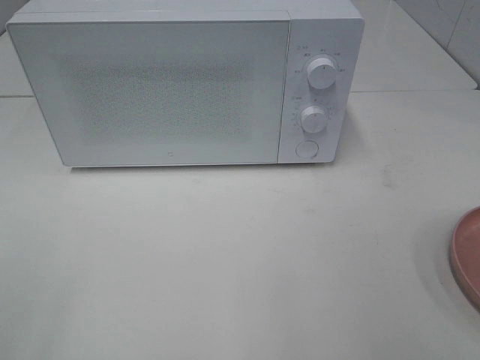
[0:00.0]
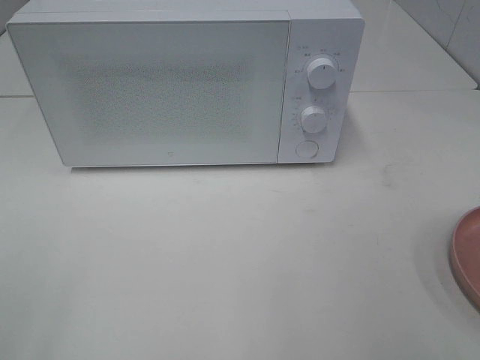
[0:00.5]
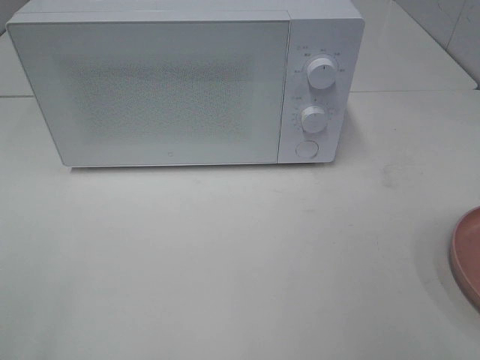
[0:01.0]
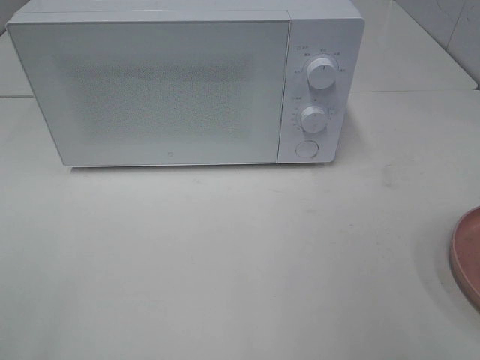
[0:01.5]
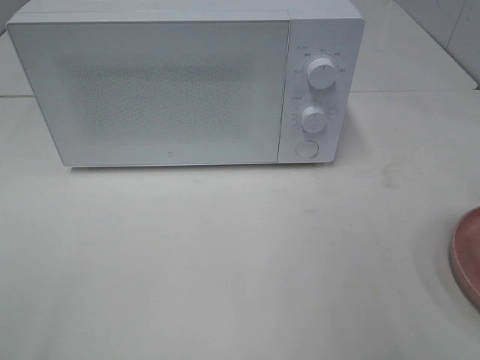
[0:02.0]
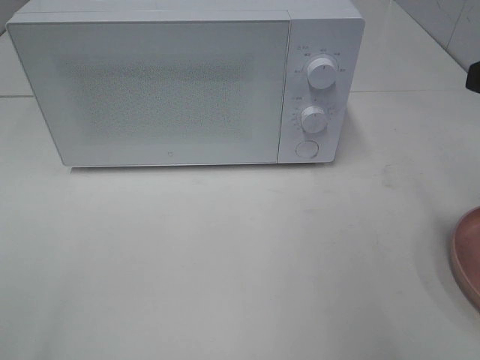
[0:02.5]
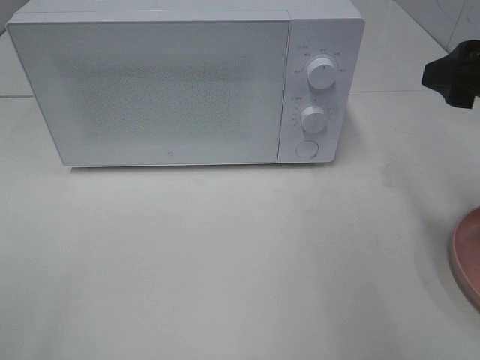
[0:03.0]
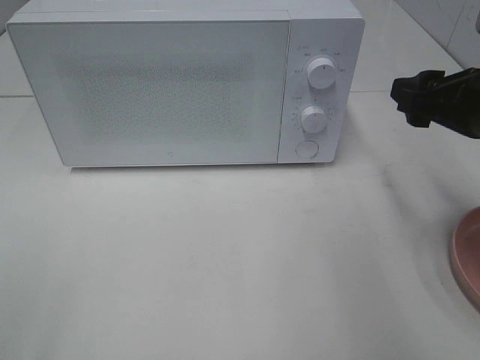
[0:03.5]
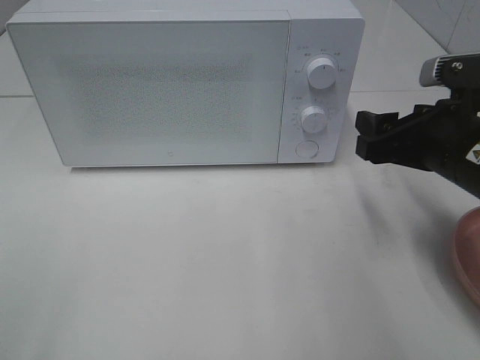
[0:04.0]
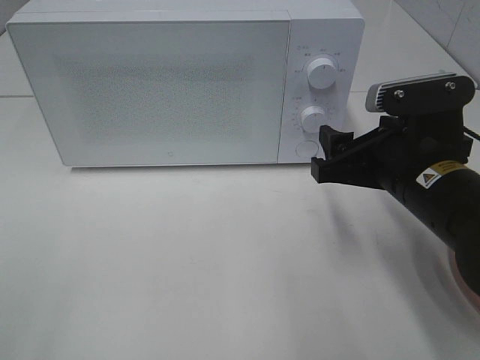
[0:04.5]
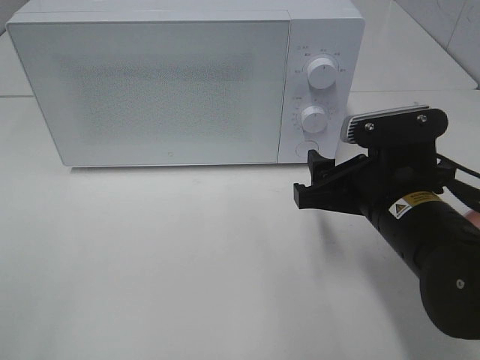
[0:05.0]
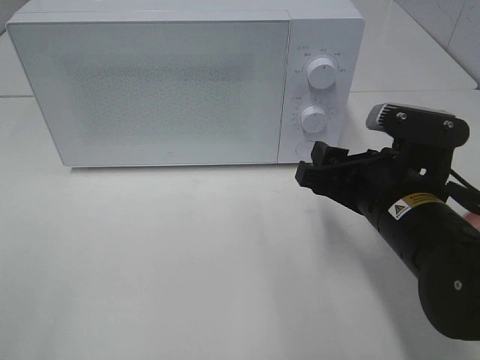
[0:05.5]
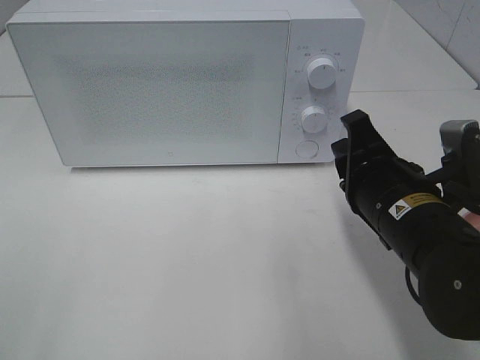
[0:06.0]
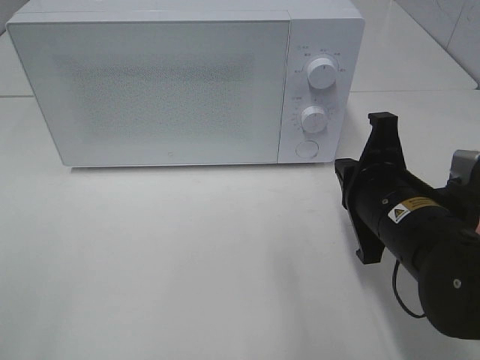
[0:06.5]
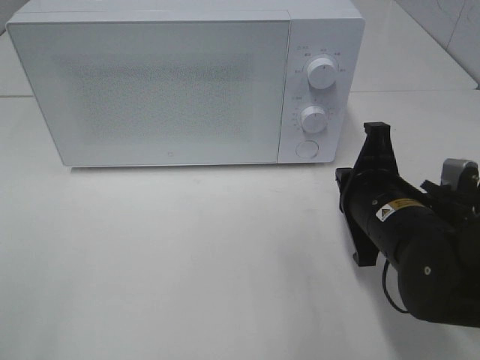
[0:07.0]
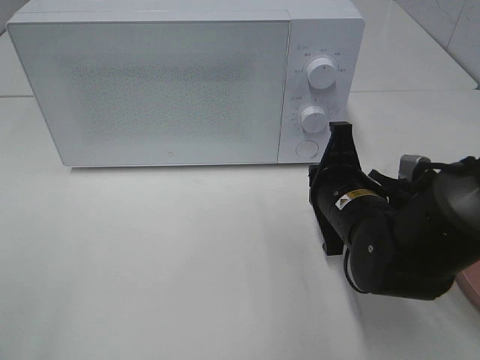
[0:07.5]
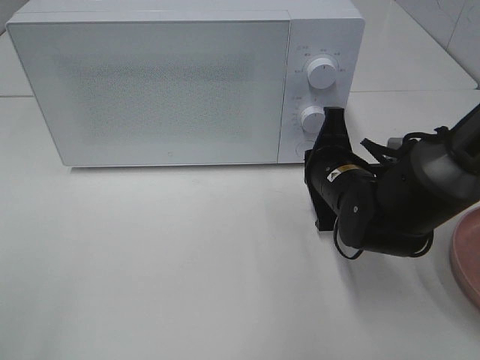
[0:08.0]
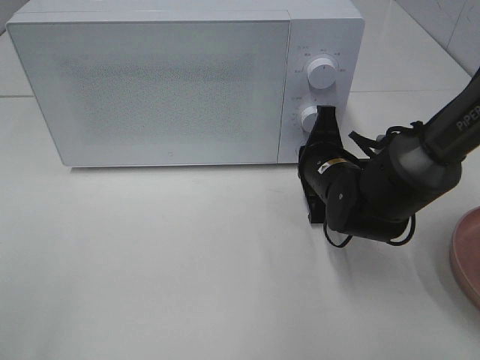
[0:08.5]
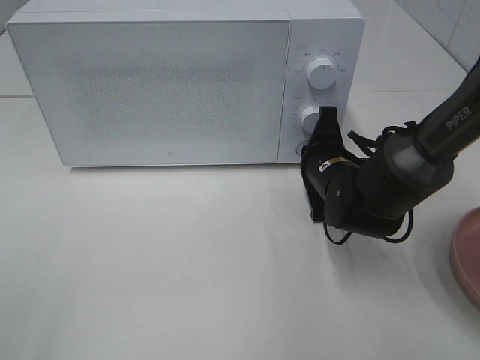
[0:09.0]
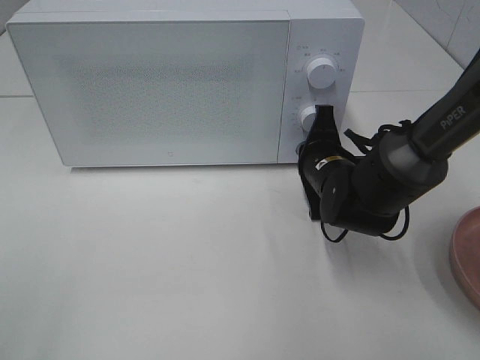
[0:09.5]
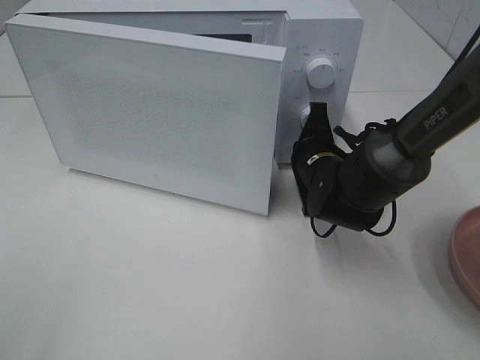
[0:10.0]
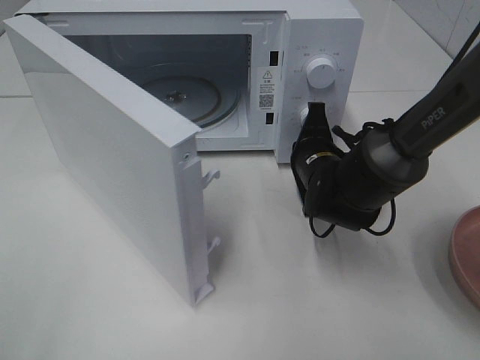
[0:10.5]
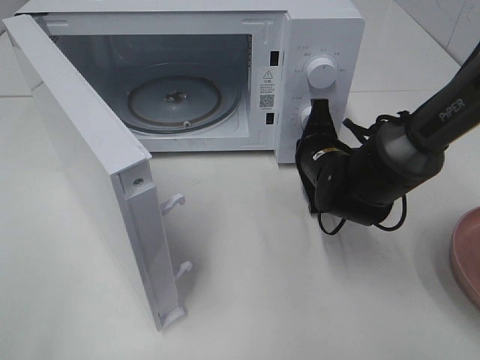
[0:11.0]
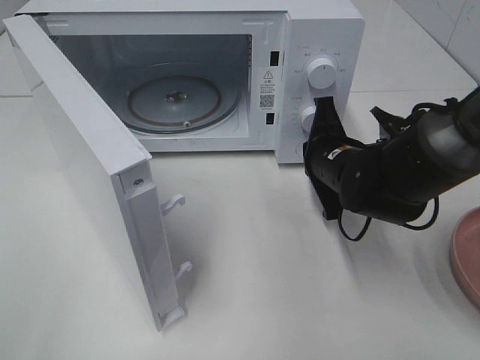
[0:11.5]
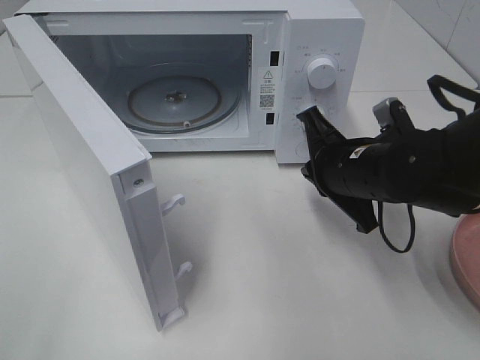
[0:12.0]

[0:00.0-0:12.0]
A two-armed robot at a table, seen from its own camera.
Task of the whole recording: Heat the burger.
Step, 0.0 to 11.5 s: Right hand: press the switch.
2.0 to 4.0 s: The right gripper shifts some 20 cm downward, forward and to the left.
4.0 to 6.0 s: The right gripper is displaced to the left by roughly 5 cm, and closes up.
6.0 to 8.0 s: The right gripper heads forward and downward, covering roughly 10 cm, and closes up.
8.0 to 10.0 s: The right gripper ends up approximately 5 cm from where it was.
10.0 to 12.0 s: The right gripper is displaced backward and upward by some 10 cm.

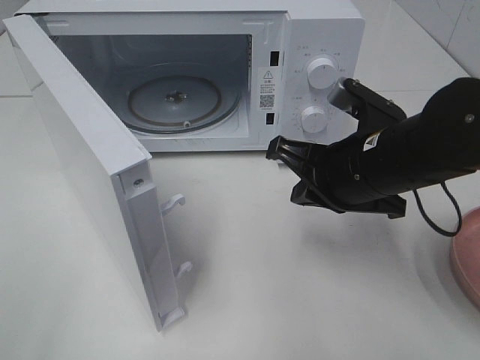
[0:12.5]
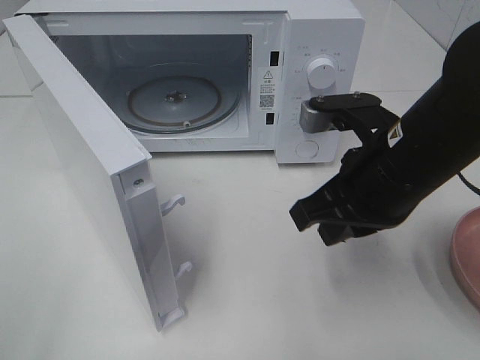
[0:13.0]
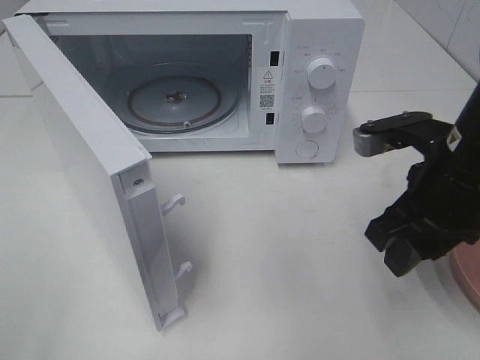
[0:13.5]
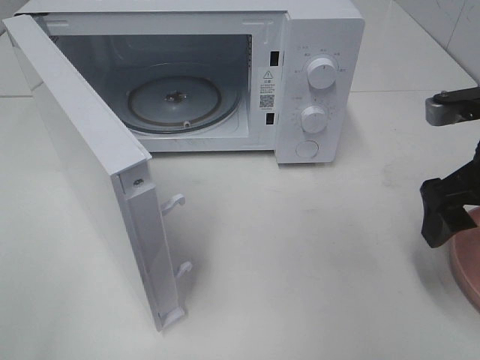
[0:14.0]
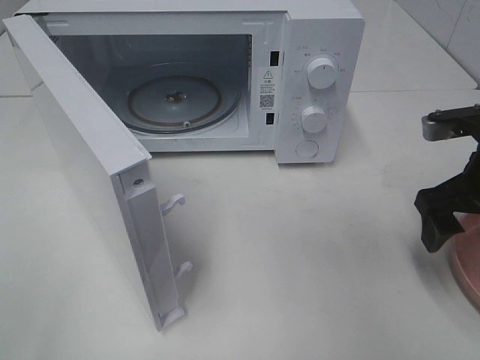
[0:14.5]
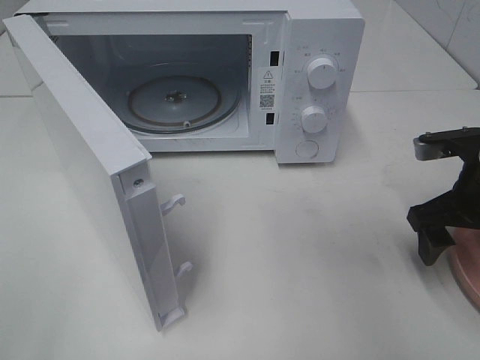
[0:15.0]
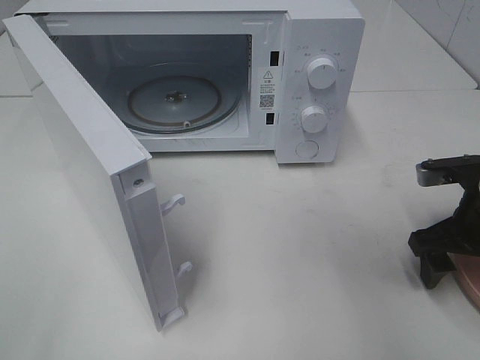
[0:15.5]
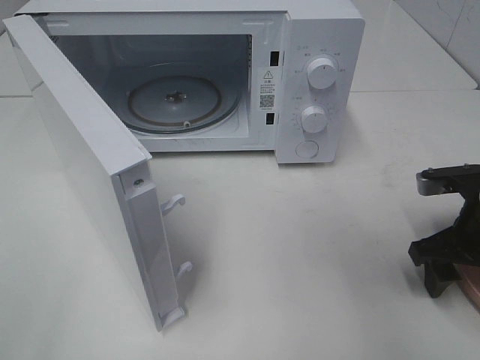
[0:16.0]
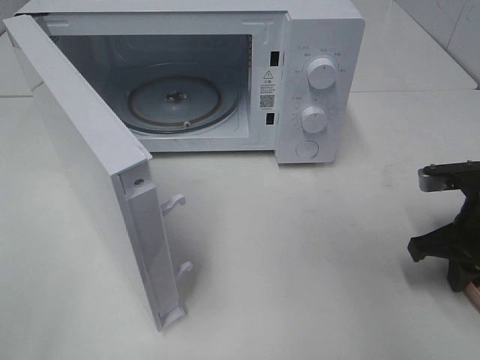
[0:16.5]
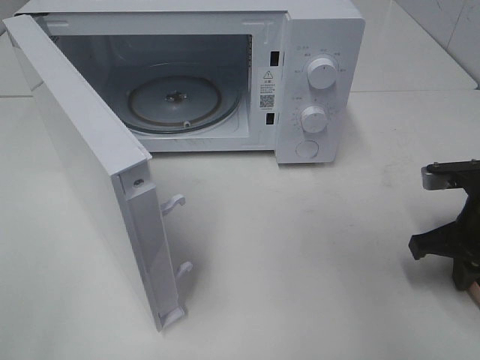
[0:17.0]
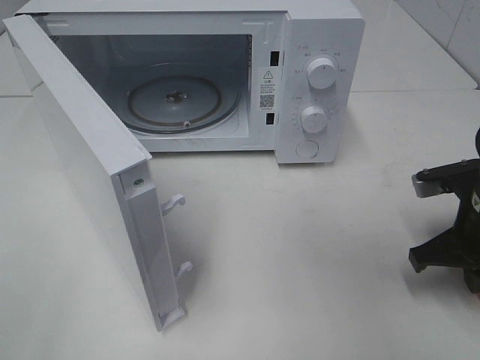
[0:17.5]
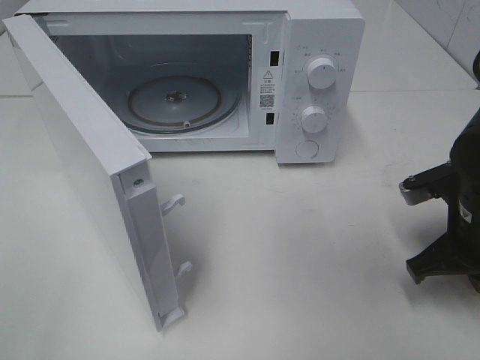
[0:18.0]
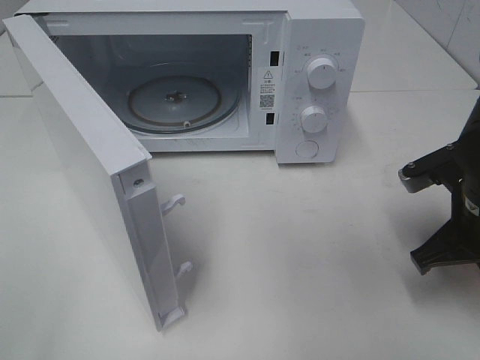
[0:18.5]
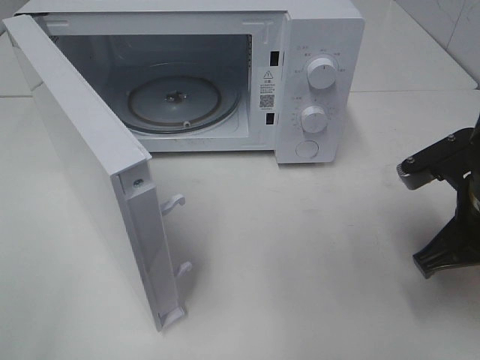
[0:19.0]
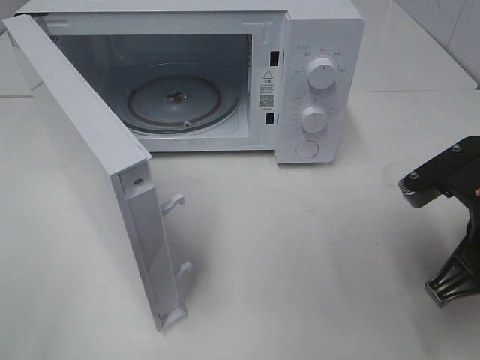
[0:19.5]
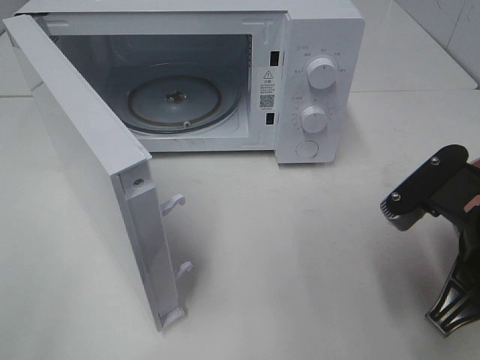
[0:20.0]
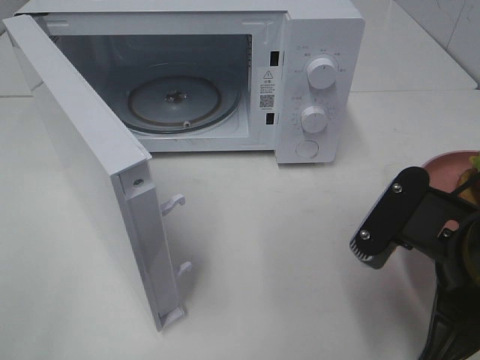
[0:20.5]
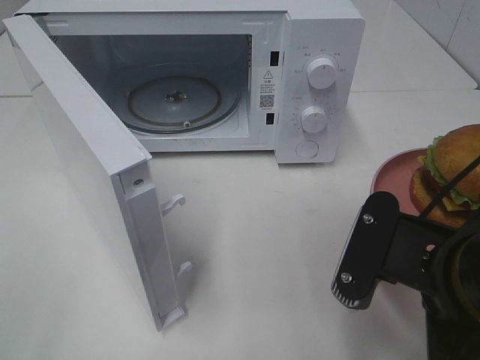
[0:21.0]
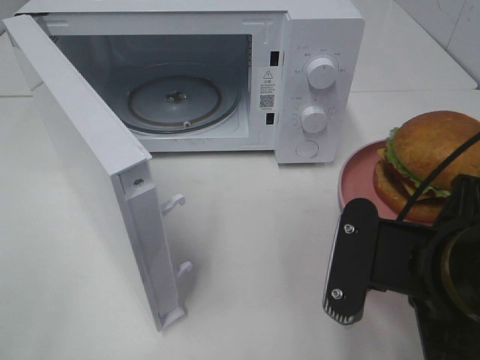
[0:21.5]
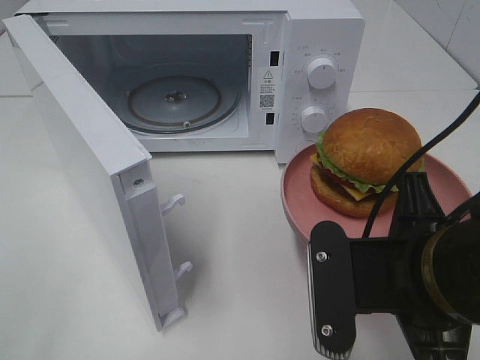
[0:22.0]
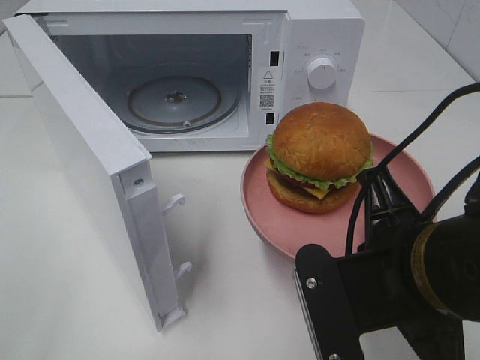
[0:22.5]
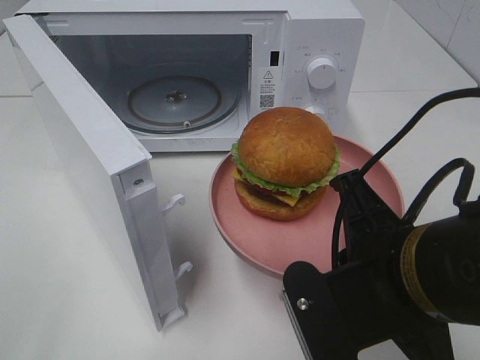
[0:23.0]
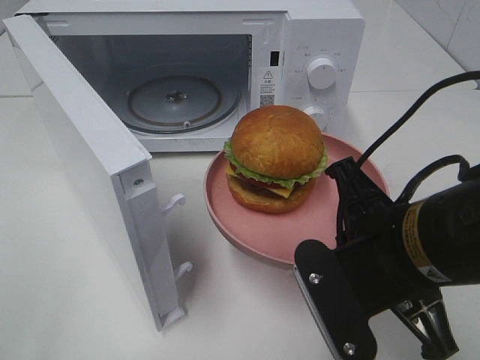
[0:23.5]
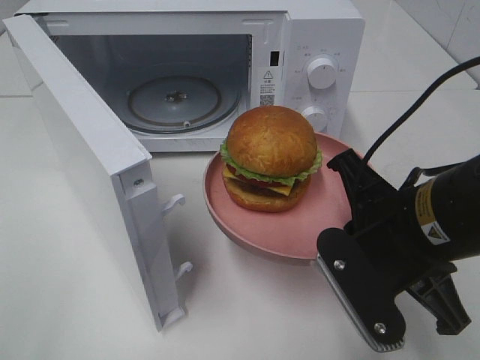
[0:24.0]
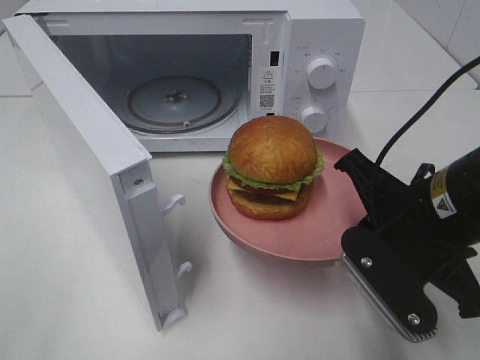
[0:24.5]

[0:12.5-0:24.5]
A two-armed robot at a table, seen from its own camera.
Task of the whole recording: Heat the burger.
Step, 12.5 to 17.5 s: Right hand: grab the plate with the hamburger.
12.5 to 14.5 s: The right gripper moves to the right, some 15 cm, and opens its fingers.
14.5 to 16.5 s: The right gripper is displaced downward by about 5 cm, and closes up.
16.5 to 18.5 s: The right gripper moves some 5 cm.
18.5 to 20.5 s: The right gripper shifts about 10 cm backward and to the left.
22.5 to 24.5 s: The right gripper travels forward by about 5 cm.

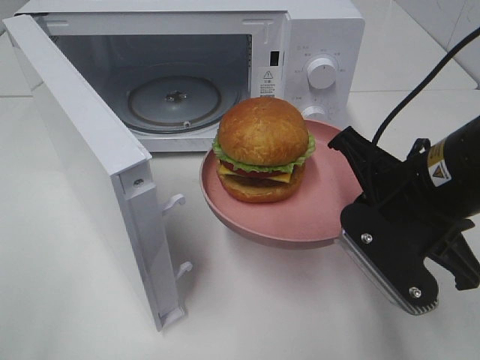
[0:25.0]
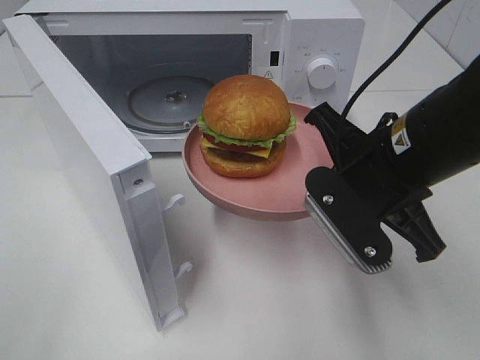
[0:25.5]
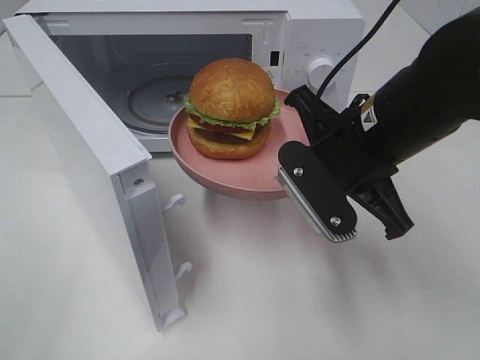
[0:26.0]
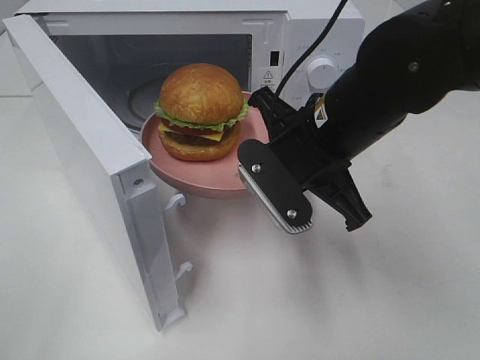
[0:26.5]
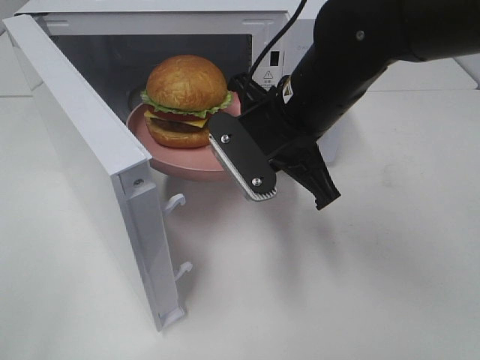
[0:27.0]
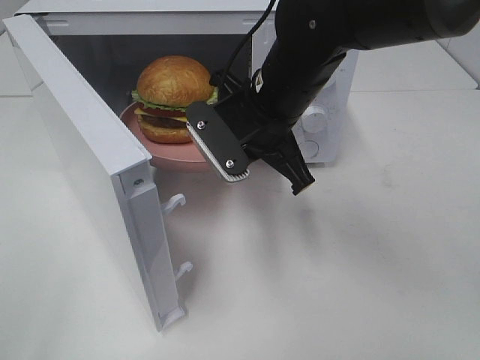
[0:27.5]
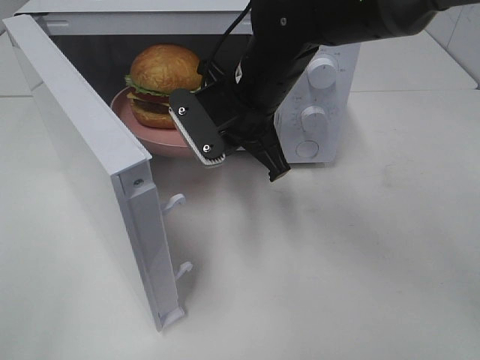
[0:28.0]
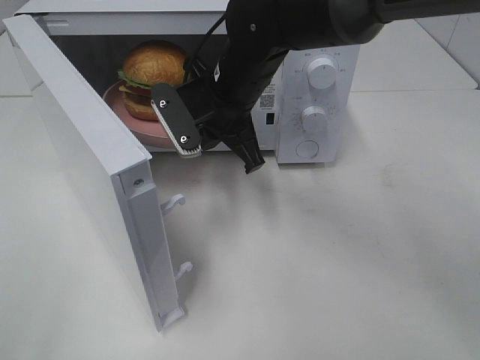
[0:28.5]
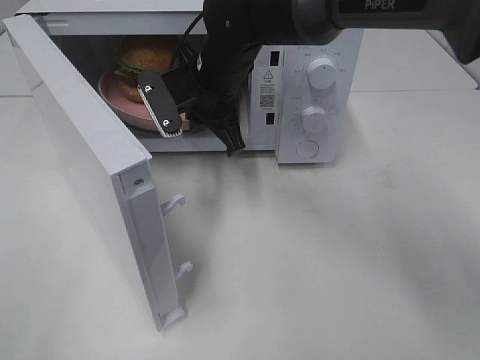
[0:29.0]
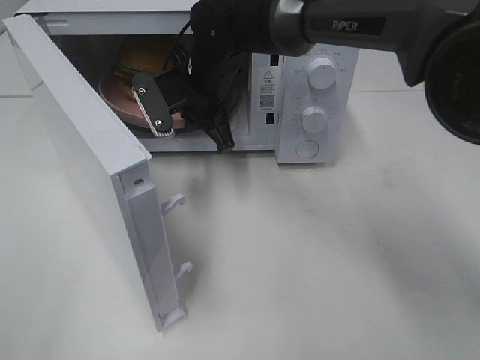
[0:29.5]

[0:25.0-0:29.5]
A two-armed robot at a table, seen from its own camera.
Task of the whole recording: Heat the burger.
25.0 to 27.0 s: The right gripper heads to the left and forward, covering roughly 15 cm.
27.0 to 29.5 s: The right gripper heads forward and to the left, covering some 15 cm.
